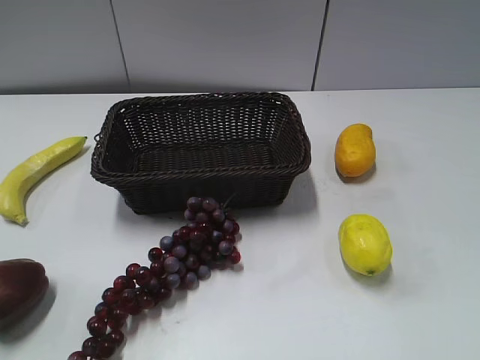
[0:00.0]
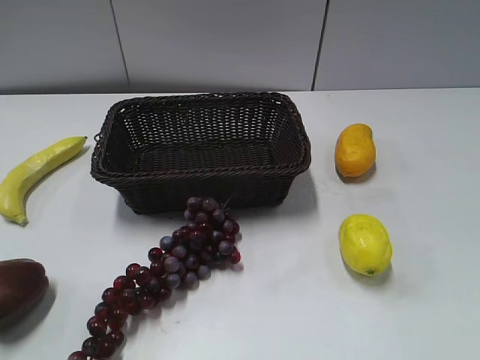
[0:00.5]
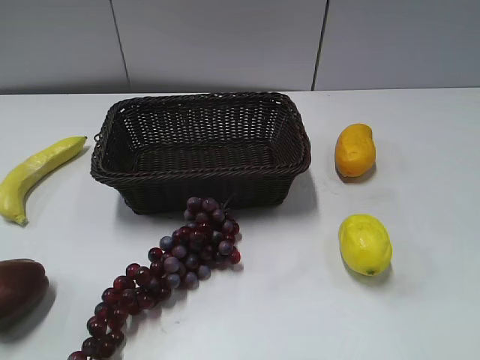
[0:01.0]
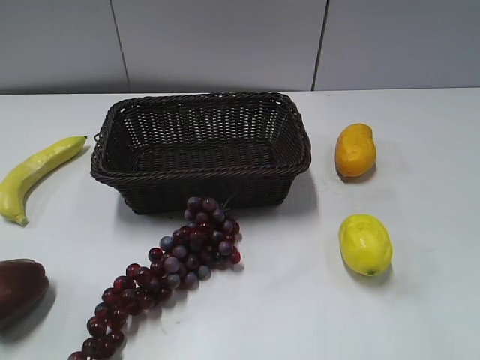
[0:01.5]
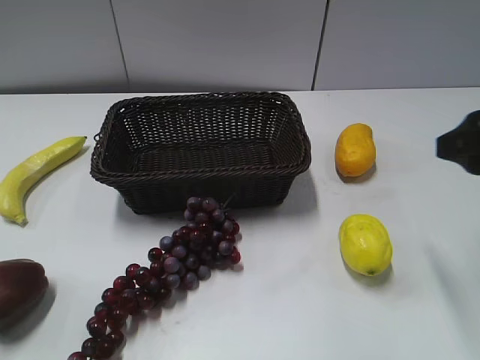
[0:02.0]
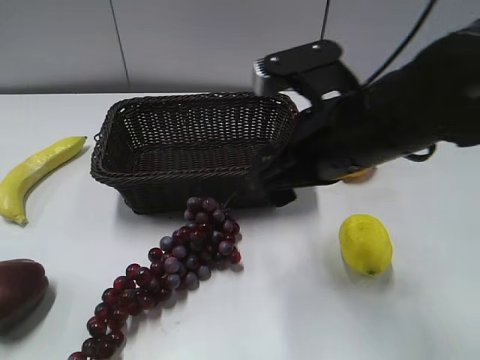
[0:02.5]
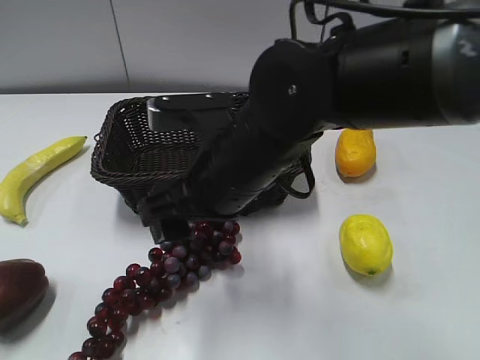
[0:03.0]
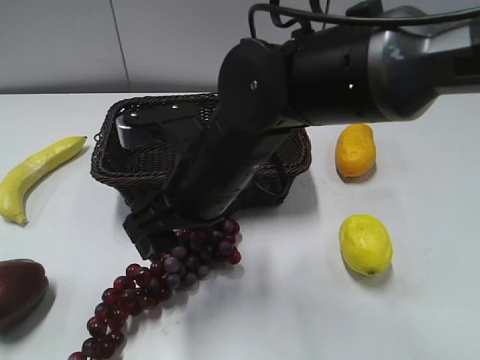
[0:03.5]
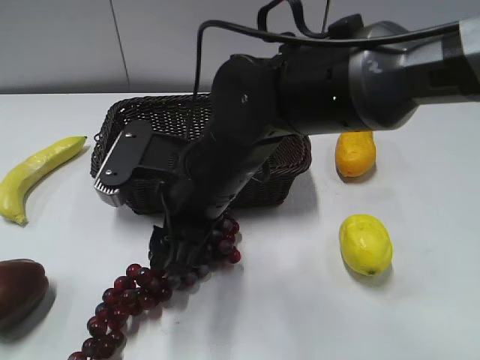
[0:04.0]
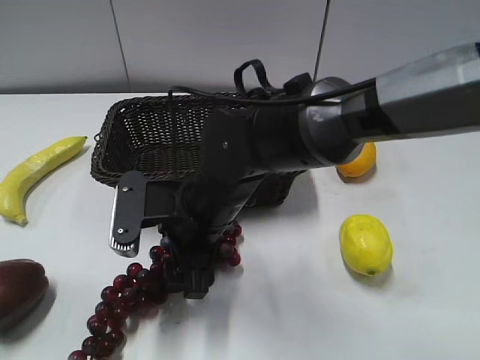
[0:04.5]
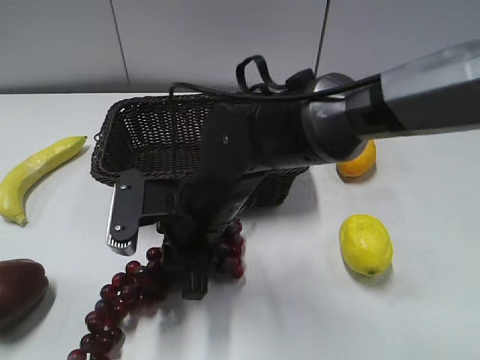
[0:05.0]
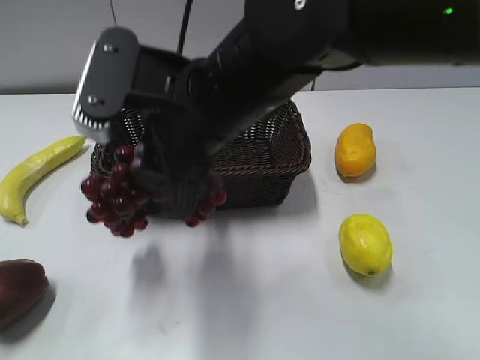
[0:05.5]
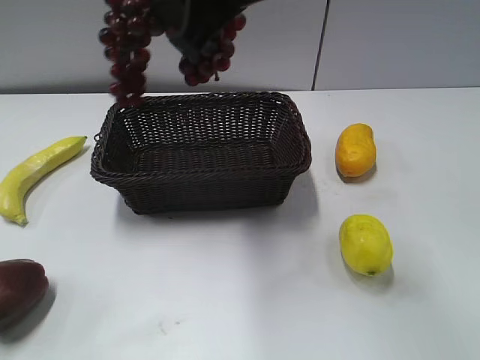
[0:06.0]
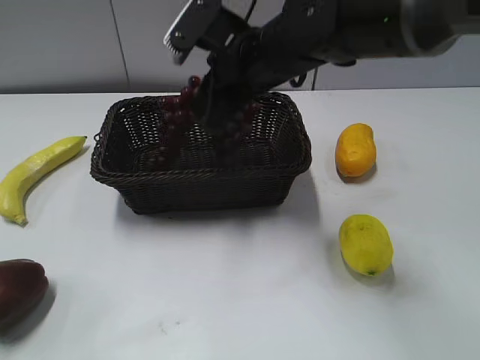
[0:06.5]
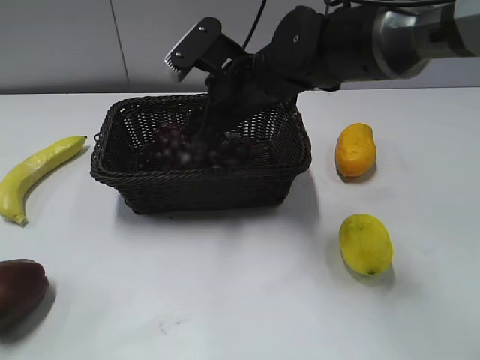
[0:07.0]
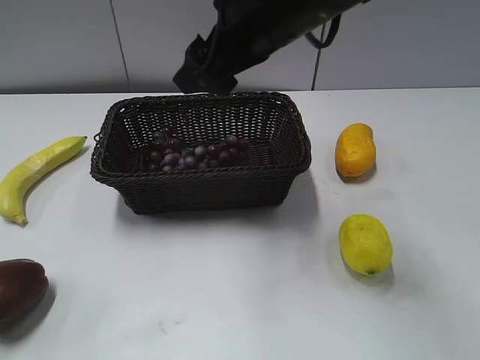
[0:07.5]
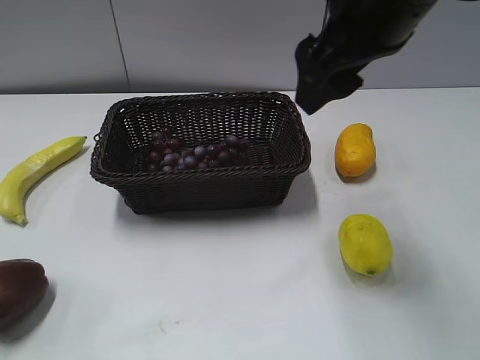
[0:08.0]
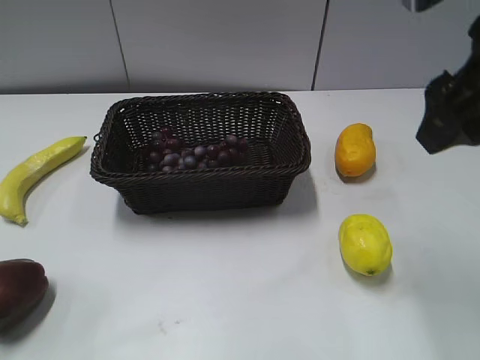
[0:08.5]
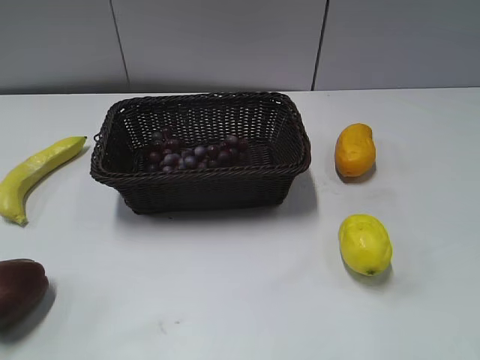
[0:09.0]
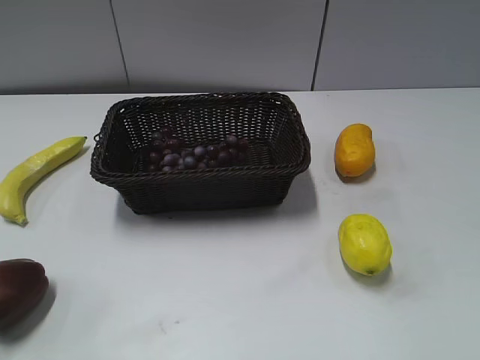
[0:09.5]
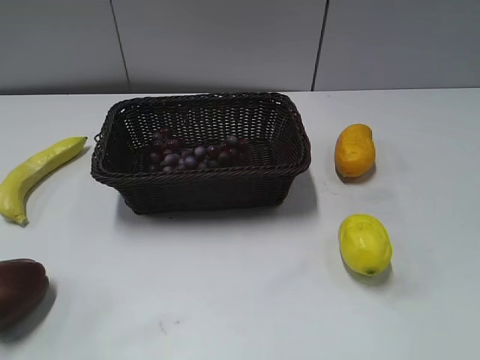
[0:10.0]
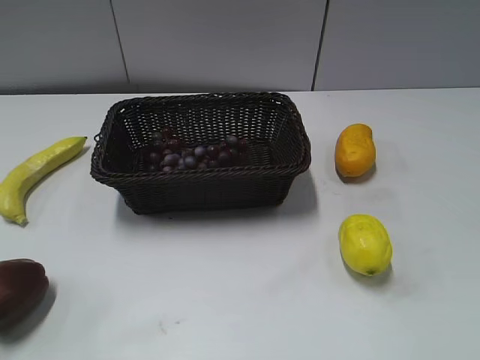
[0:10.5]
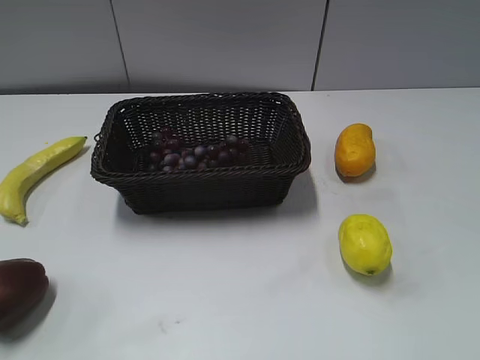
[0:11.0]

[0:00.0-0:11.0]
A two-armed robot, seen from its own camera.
Step, 0:02.0 to 0:05.0: Grasp the grape with right gripper.
Step, 0:05.5 to 0:07.0: Place the grape in the basket with right gripper.
0:02.0 to 0:03.5: The right gripper shifts about 30 cm to the left.
0:03.5 to 0:05.5: The right gripper goes about 10 cm upward, and closes its fingers.
0:05.5 to 0:07.5: The right gripper moves up and down over about 15 cm, changing direction 2 times, and opens.
0:07.5 to 0:09.0: The right gripper is displaced to the right and backward by roughly 30 cm.
